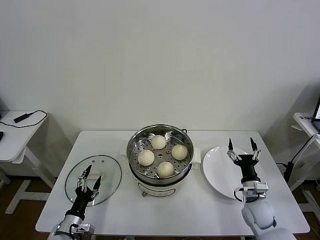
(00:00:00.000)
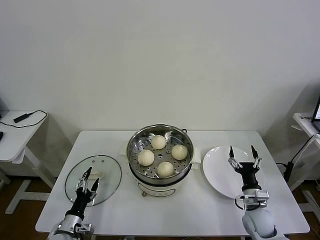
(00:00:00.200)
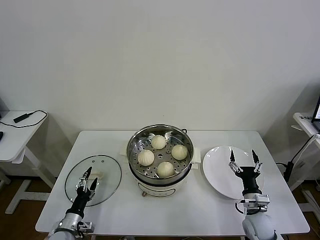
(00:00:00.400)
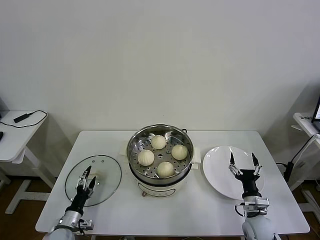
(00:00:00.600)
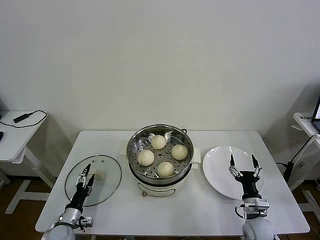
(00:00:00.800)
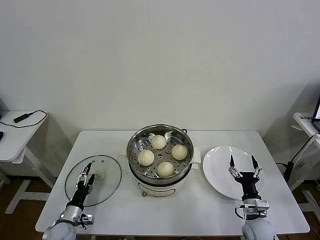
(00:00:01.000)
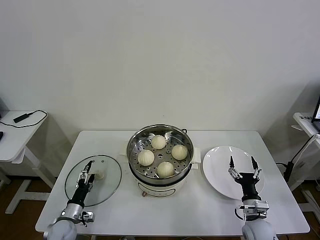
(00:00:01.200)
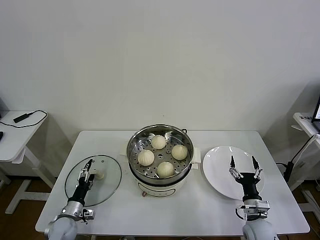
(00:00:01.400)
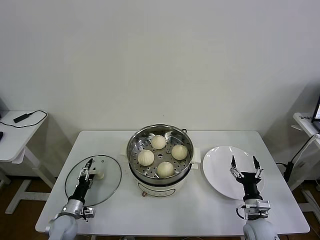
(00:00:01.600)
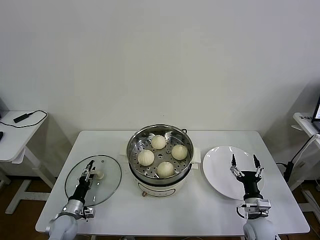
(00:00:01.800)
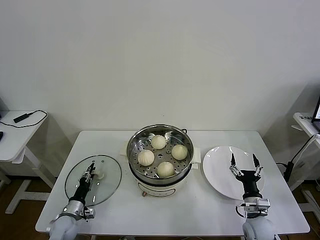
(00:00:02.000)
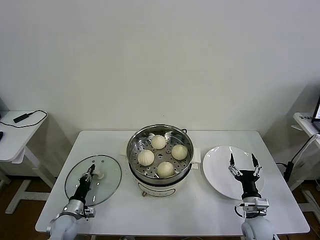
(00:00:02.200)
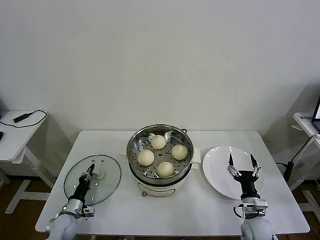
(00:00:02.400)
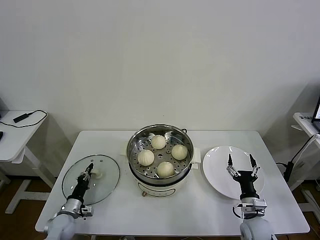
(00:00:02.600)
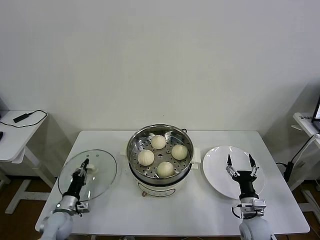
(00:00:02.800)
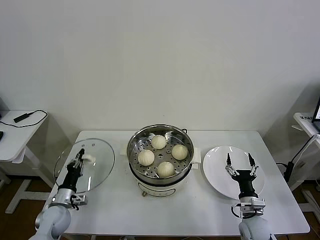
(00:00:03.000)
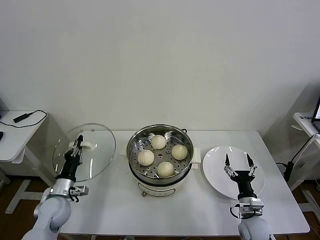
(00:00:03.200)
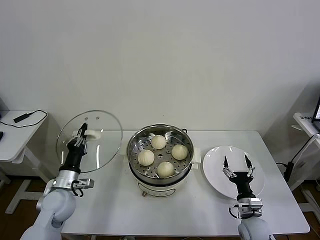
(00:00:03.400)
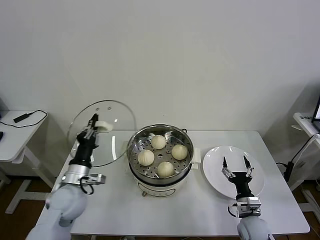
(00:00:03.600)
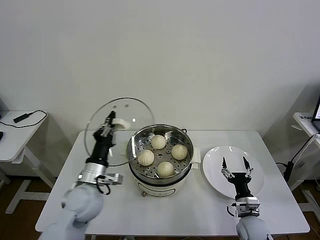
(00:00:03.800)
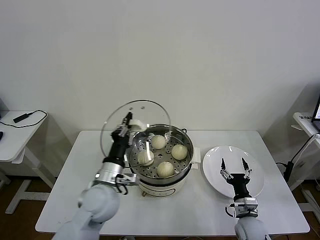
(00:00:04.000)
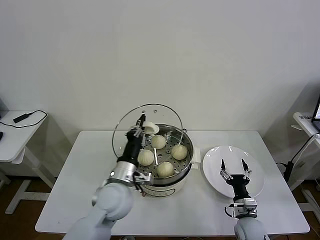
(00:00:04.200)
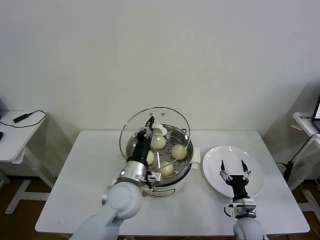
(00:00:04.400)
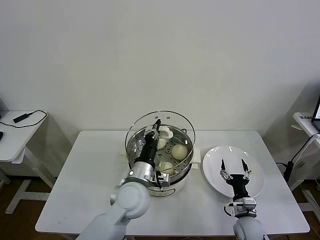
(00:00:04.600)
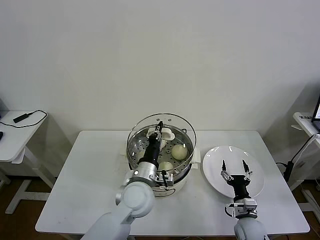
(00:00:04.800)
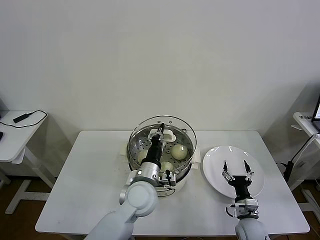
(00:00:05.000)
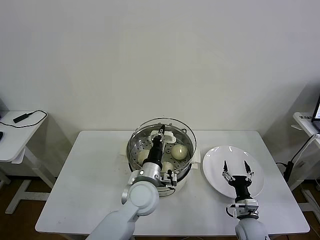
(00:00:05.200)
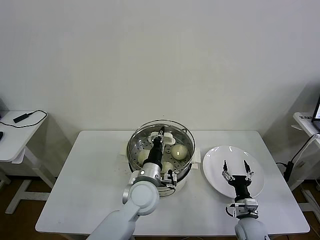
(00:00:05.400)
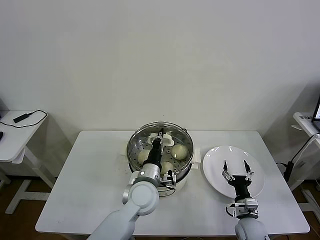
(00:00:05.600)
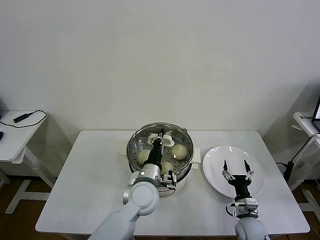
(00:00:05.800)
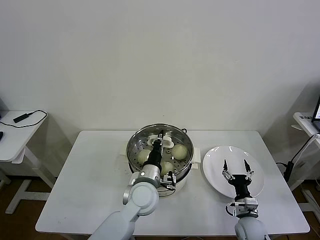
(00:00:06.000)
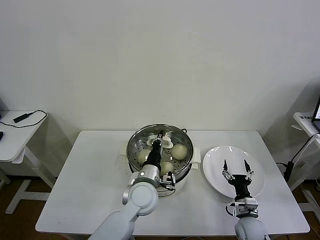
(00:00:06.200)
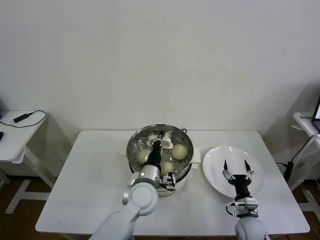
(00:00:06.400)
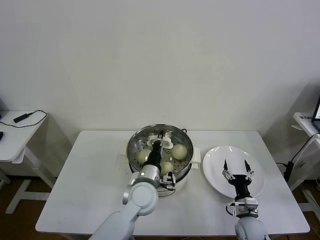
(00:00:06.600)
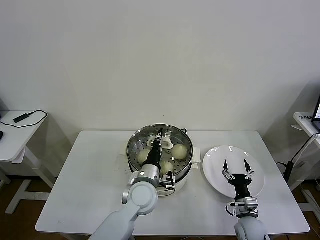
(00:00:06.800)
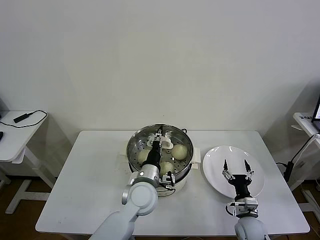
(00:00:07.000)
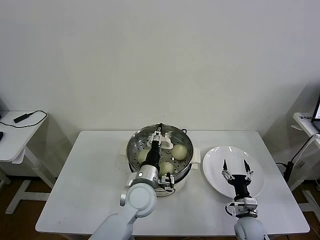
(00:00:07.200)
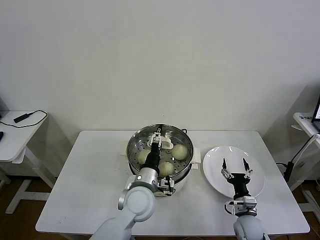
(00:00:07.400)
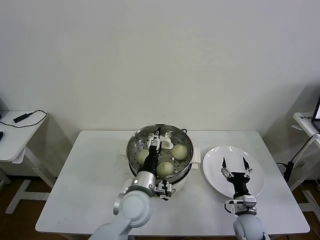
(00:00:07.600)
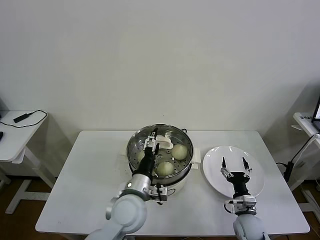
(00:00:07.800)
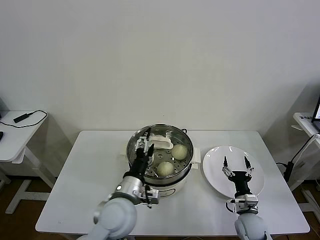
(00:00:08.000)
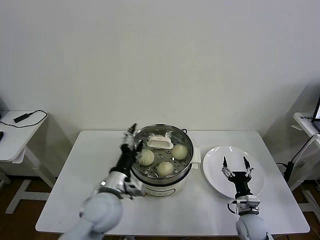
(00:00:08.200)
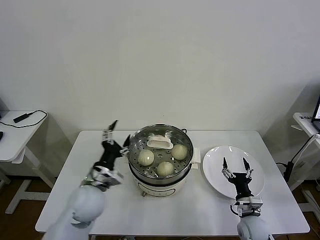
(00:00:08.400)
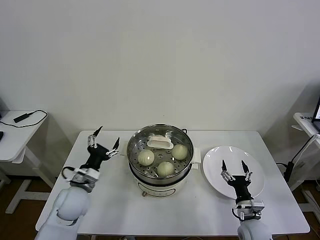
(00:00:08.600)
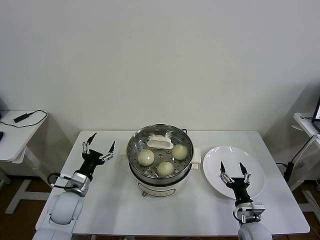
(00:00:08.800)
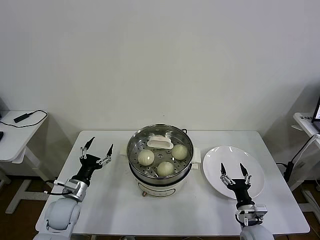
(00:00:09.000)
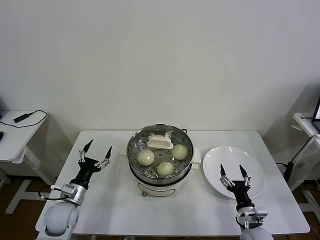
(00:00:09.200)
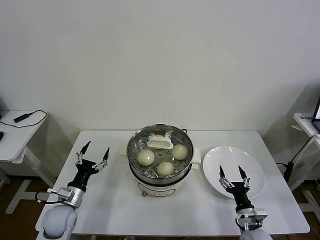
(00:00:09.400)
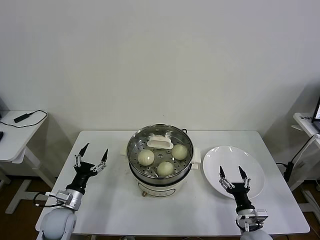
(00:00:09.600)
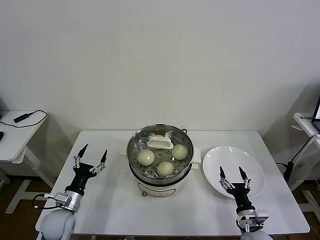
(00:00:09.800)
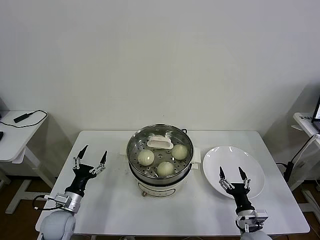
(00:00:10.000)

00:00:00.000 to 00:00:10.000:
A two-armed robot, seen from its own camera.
Task of the whole recording: take steamed baozi put them in steamer then cover it.
Step, 00:00:00.000 to 00:00:02.400: Grasp the pot lid with left gripper.
Step, 00:00:02.800 to 00:00:07.000: Place the pot lid on the steamer with left gripper.
00:00:00.000 to 00:00:01.400: The right gripper shifts by about 5 cm. Meanwhile the left gripper travels forward and downward by approximately 10 cm.
00:00:01.400 to 00:00:02.800: The left gripper closes up.
00:00:02.800 to 00:00:04.200: The left gripper travels to the right and upward by some 35 cm.
00:00:04.200 to 00:00:05.800: The left gripper goes some 10 cm to the right.
00:00:05.800 to 00:00:07.200: The left gripper opens.
00:00:07.200 to 00:00:08.600: The left gripper goes about 20 cm to the left.
00:00:08.600 to 00:00:10.000: The left gripper travels downward and to the left by approximately 15 cm.
